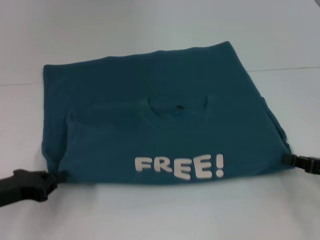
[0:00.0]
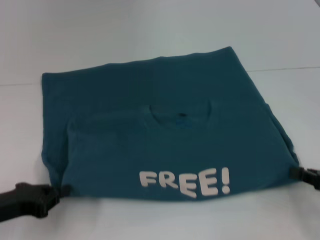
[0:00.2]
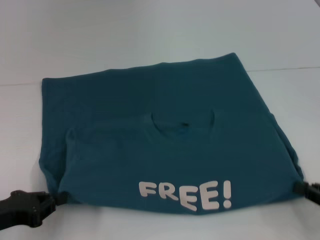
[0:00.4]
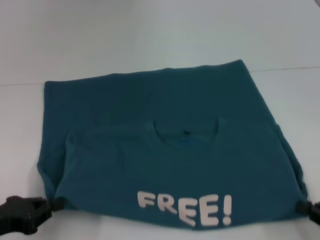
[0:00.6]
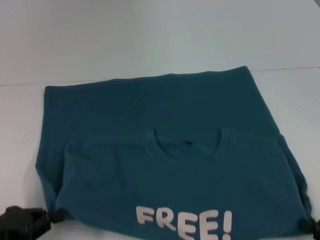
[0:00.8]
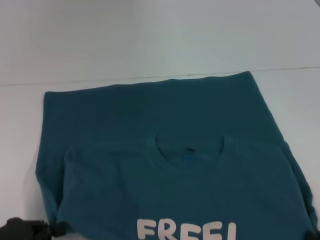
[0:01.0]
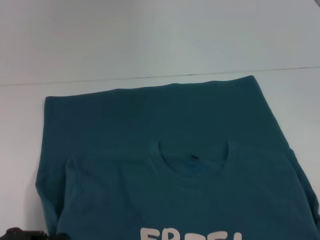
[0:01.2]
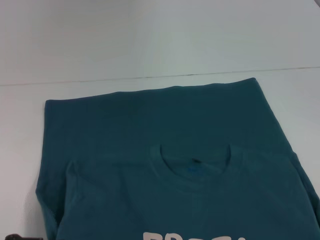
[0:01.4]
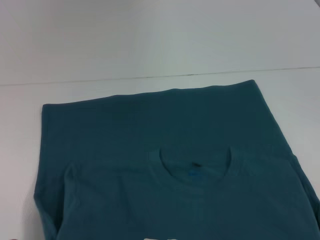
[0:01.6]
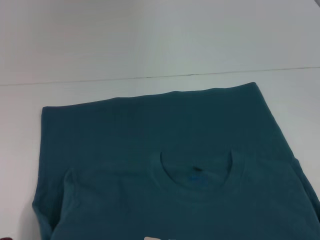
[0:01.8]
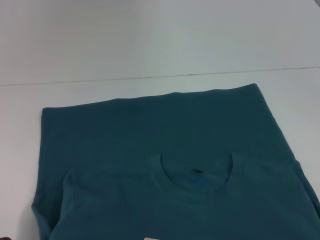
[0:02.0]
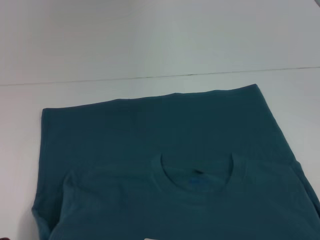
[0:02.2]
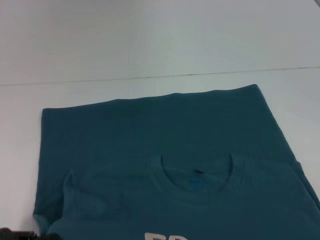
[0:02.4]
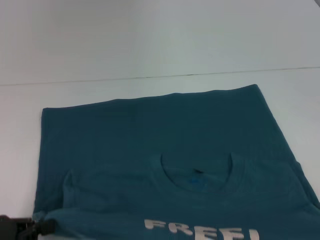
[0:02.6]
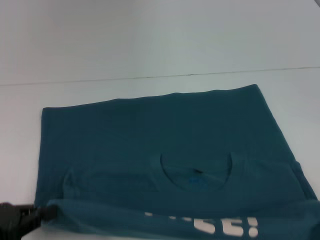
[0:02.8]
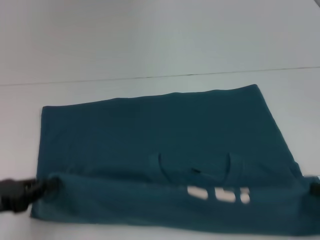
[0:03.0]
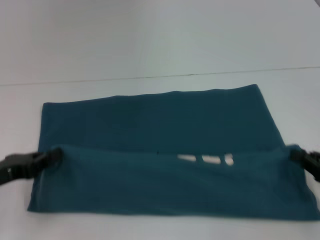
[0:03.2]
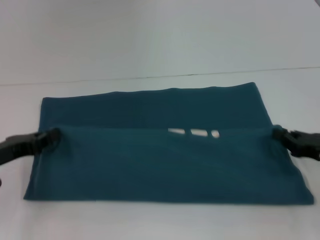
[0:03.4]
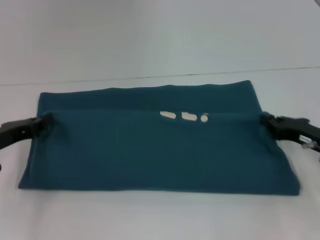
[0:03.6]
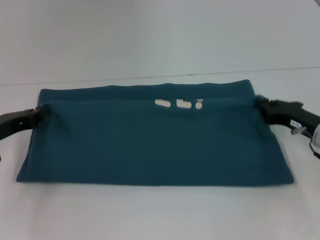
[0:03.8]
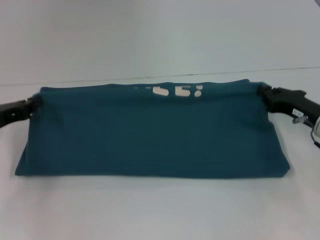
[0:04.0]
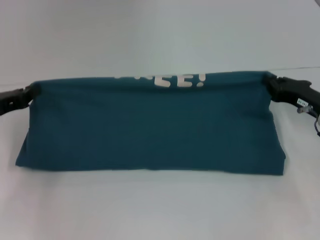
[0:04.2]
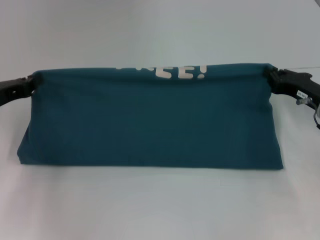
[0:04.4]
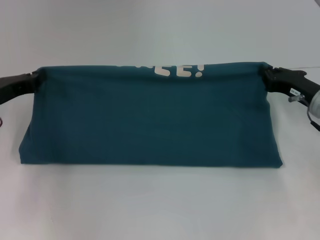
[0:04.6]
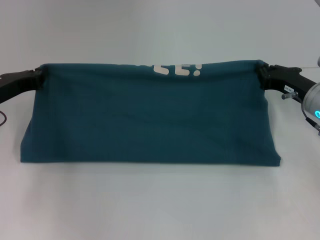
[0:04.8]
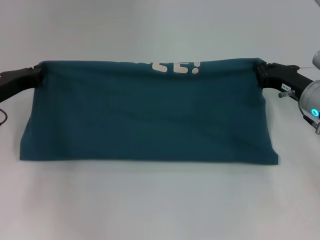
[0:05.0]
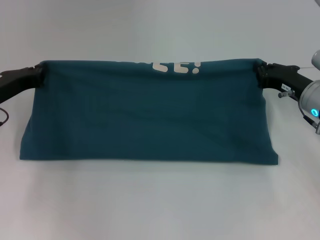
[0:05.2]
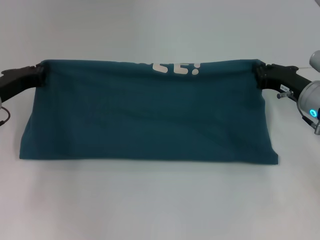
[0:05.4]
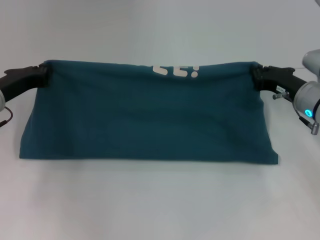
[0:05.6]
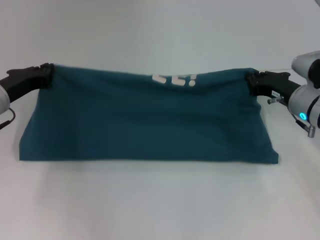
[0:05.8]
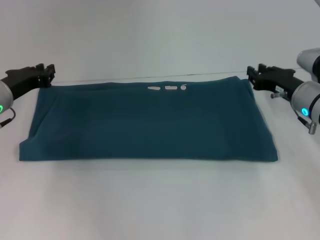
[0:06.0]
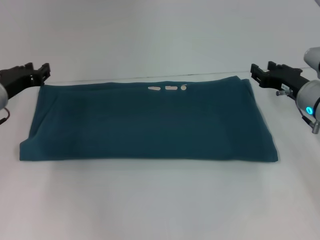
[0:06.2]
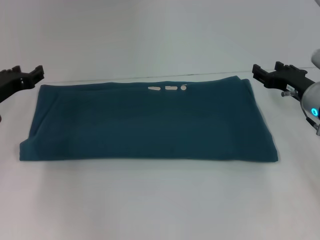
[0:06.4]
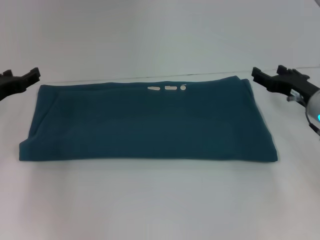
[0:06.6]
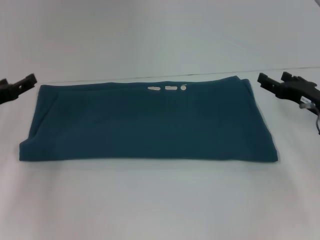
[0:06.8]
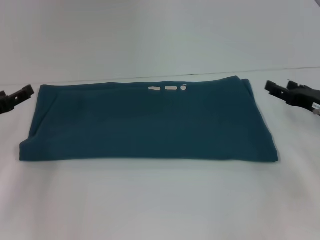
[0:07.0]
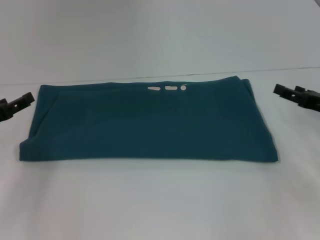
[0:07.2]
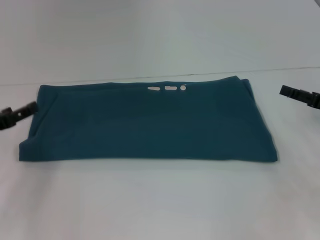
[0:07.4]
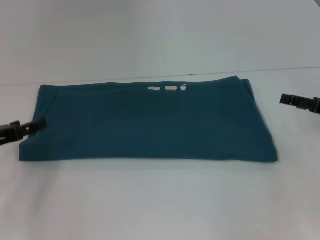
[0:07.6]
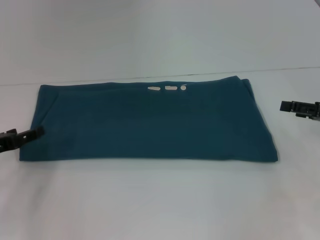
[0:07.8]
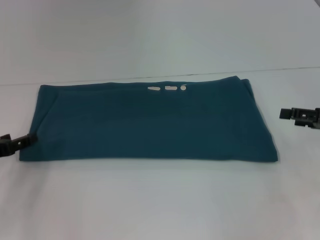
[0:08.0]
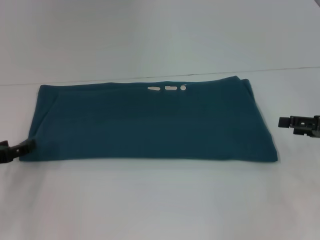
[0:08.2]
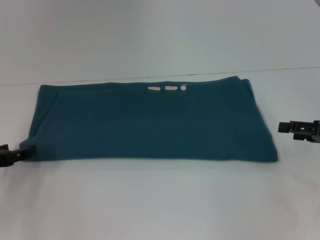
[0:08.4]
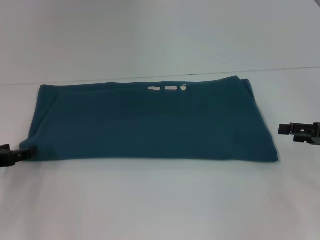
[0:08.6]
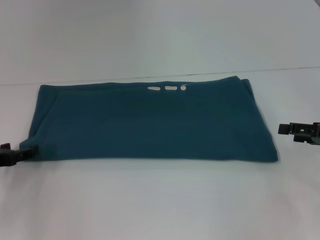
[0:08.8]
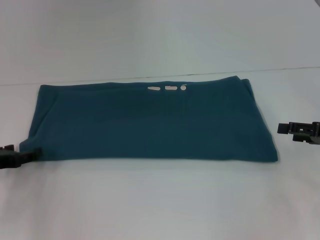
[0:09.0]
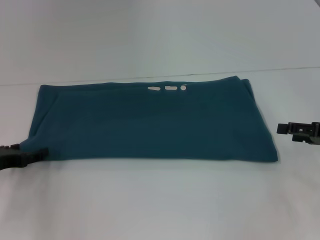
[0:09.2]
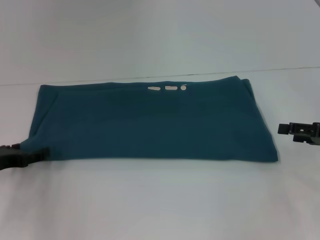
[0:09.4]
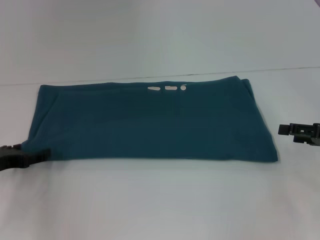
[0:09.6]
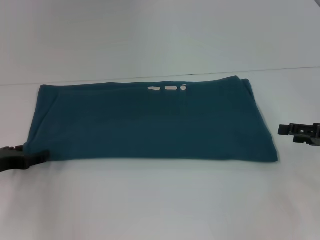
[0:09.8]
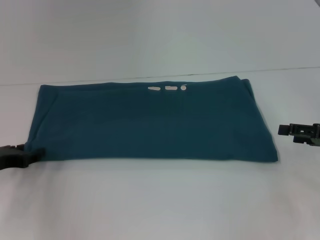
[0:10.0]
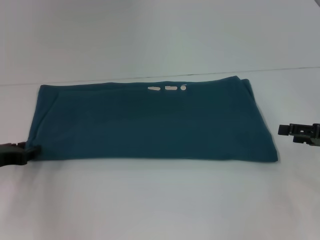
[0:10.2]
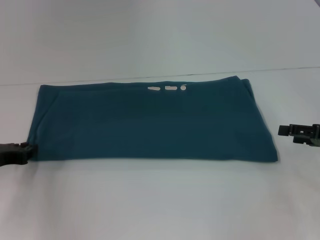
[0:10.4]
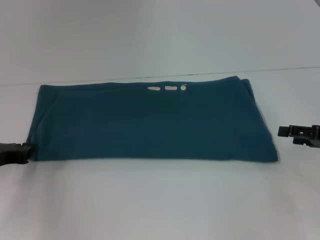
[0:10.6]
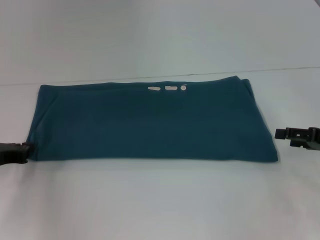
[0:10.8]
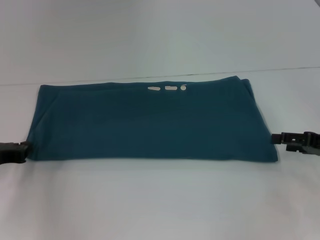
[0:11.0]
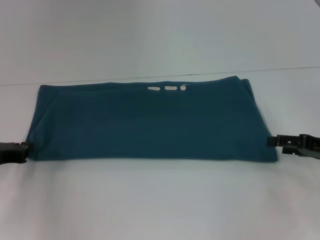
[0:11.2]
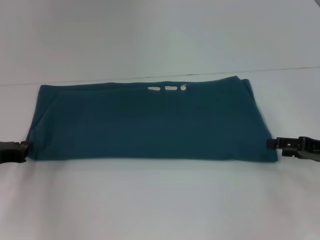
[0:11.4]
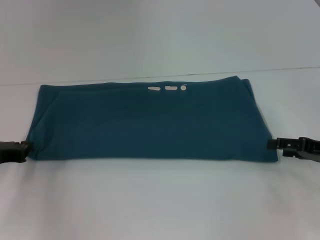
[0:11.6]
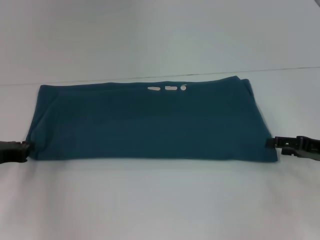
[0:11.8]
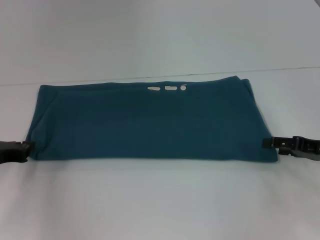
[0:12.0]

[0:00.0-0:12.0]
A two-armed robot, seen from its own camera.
Step, 0:01.8 to 0:06.2: Fold the clothes to the right.
0:00.0 to 0:01.6: The left gripper goes roughly 10 cm backward; the right gripper is displaced backward by roughly 15 cm.
0:01.6 to 0:03.0: The grippers both shift forward by about 5 cm.
0:03.0 to 0:04.4: Both grippers travel together forward, approximately 15 cm.
0:04.4 to 0:06.0: The left gripper moves about 5 cm.
0:06.0 to 0:07.6: The right gripper is displaced to the right and backward by approximately 10 cm, and opens up; the left gripper shifts some 10 cm backward and to the left, and opens its fingers.
0:07.6 to 0:09.0: The grippers stay close to where they were, moving slightly.

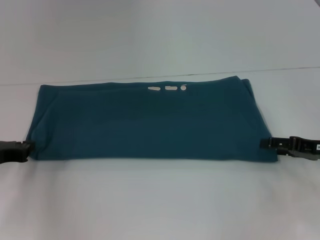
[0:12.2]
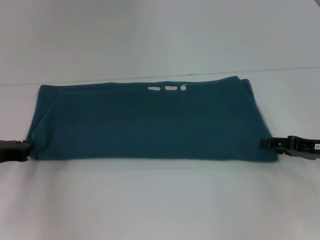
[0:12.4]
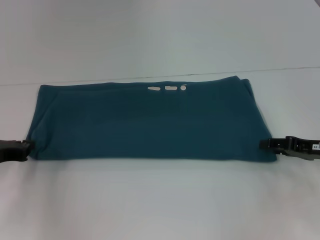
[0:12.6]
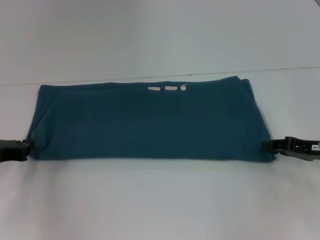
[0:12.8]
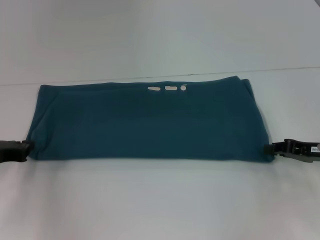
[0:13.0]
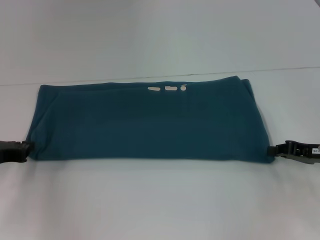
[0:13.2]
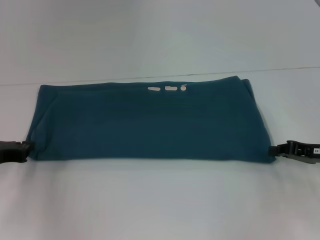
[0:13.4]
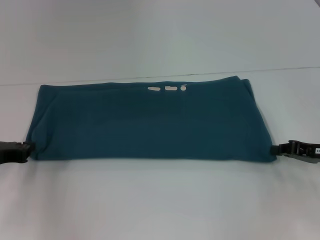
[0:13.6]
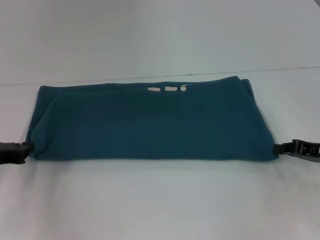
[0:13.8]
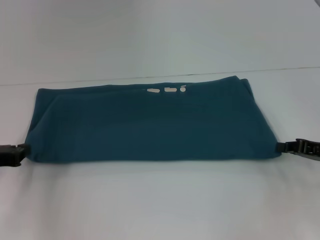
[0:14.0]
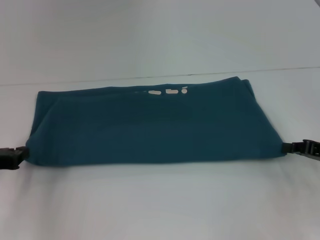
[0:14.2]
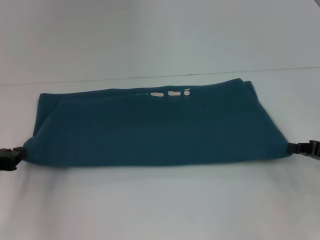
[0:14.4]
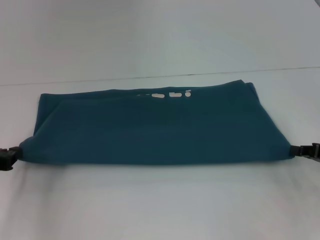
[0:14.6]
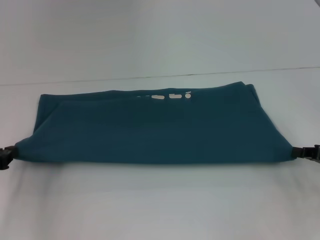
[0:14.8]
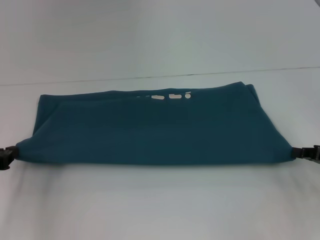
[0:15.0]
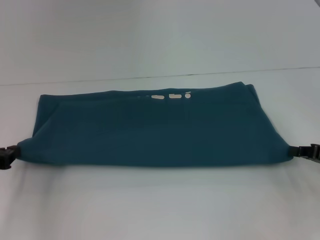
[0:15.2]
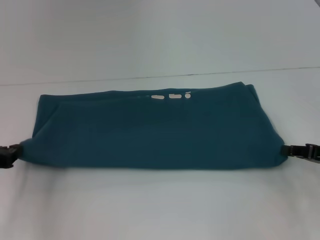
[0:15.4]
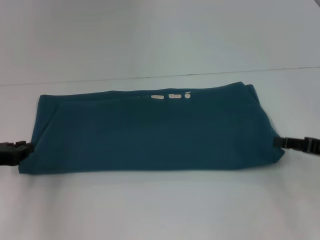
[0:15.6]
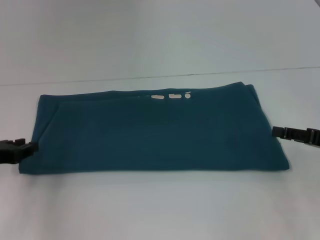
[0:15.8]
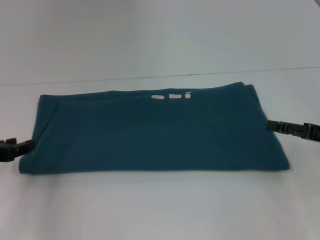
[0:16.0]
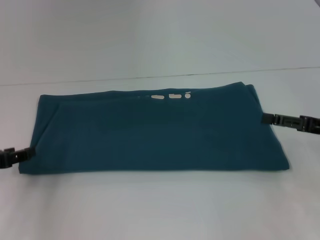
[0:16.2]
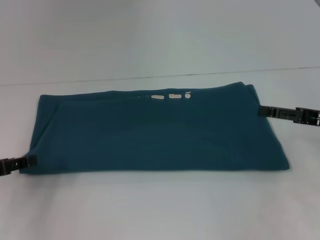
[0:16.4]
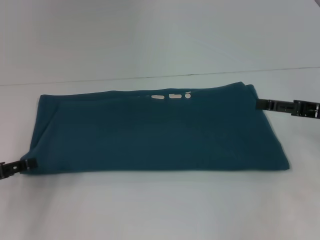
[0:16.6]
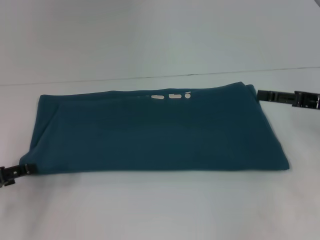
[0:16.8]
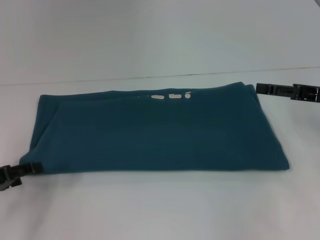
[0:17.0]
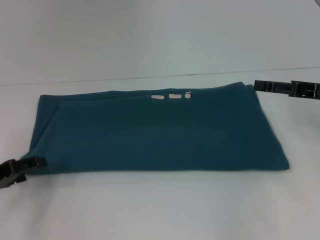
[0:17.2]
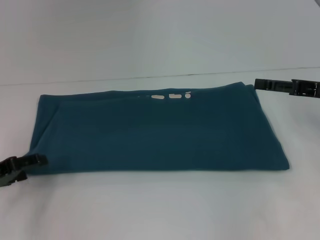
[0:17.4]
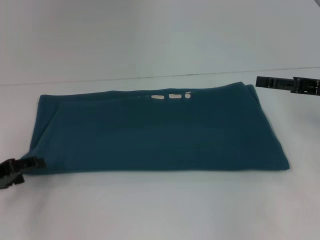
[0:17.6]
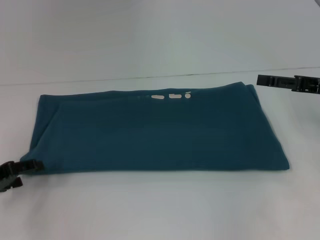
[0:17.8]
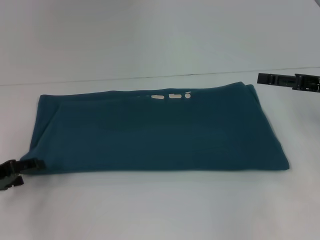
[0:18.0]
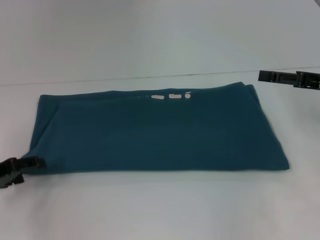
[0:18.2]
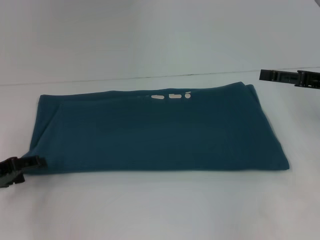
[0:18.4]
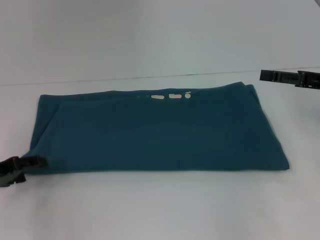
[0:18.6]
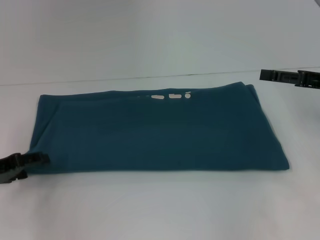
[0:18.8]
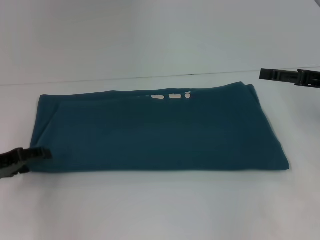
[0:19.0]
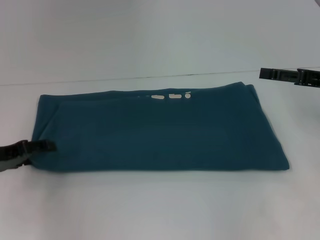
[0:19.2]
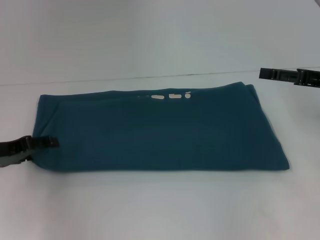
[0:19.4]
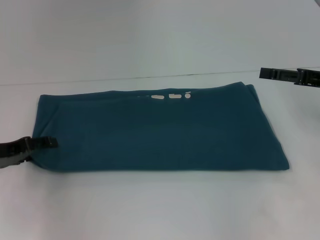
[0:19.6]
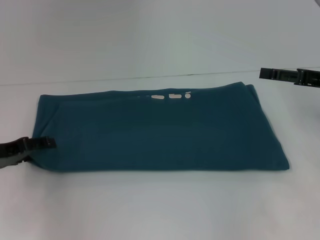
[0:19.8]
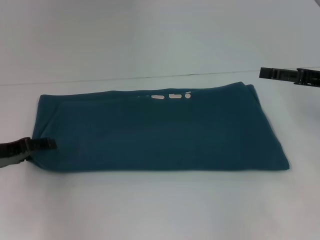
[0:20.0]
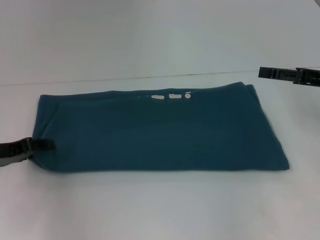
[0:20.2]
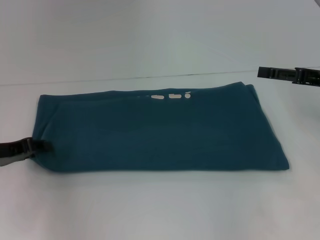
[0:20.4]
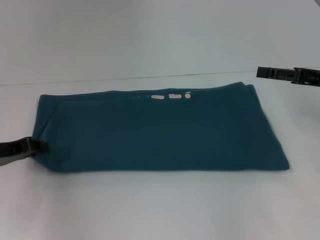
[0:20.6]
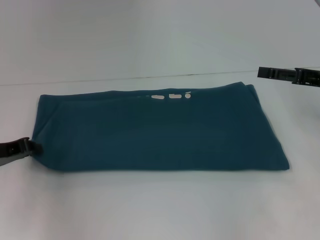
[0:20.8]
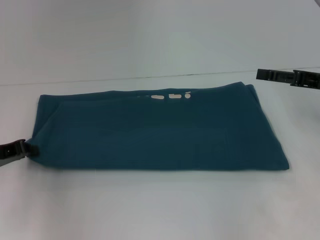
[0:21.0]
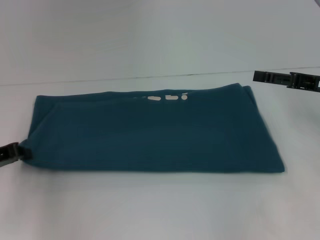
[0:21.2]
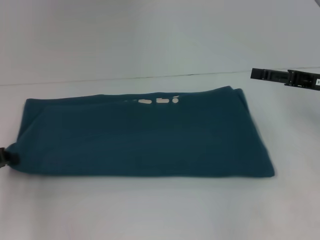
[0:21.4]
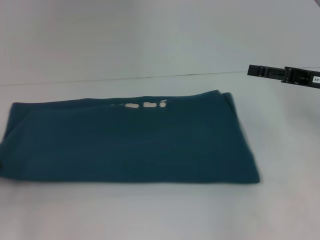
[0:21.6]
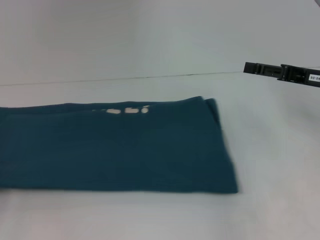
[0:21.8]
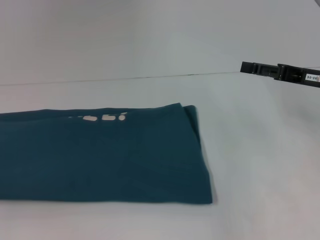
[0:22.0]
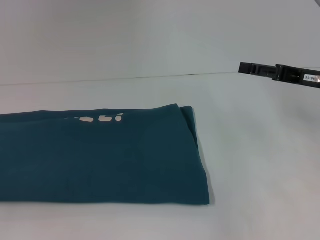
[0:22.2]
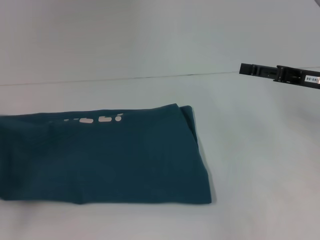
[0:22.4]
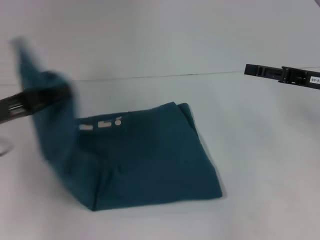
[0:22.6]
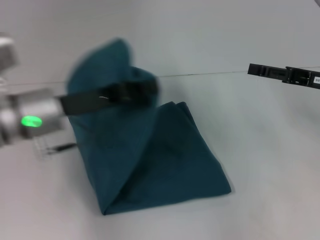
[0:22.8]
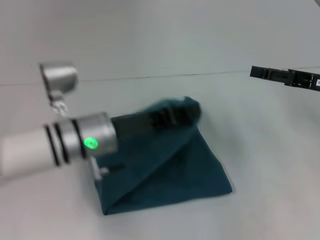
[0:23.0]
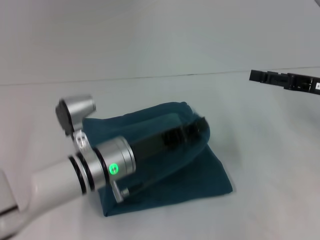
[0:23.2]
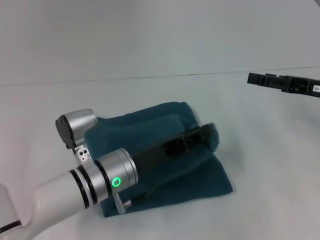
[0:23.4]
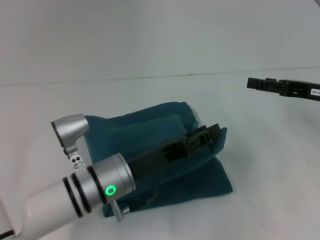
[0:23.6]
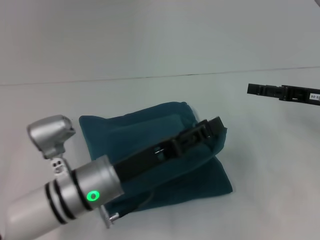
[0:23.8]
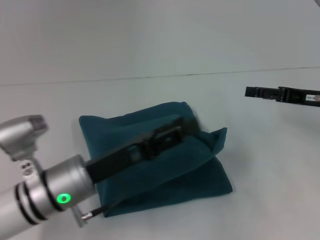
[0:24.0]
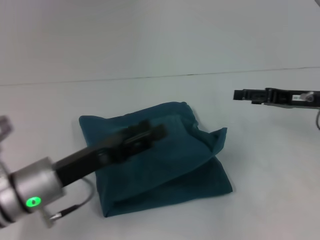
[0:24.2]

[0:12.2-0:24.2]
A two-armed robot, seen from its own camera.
Step, 0:12.2 to 0:23.8: Fold the clothes to the left.
0:12.2 to 0:13.8: The right gripper closes its fingers.
0:13.8 to 0:15.2: The grippers stay close to where they were, moving slightly.
0:15.2 to 0:16.6: The right gripper heads upward, covering about 5 cm, and opens. The left gripper opens its fingers.
0:16.6 to 0:18.2: There are only small adjustments of the grippers.
0:18.2 to 0:19.8: There are only small adjustments of the grippers.
0:19.8 to 0:21.2: The left gripper closes.
0:21.2 to 0:22.6: The left gripper goes approximately 5 cm upward, and moves about 10 cm to the left and comes back.
0:22.6 to 0:24.2: The left gripper is displaced to the right and downward by about 15 cm, and opens its fingers.
